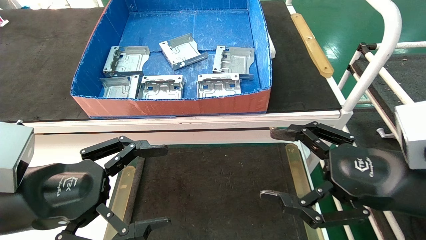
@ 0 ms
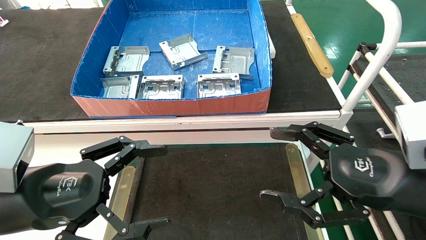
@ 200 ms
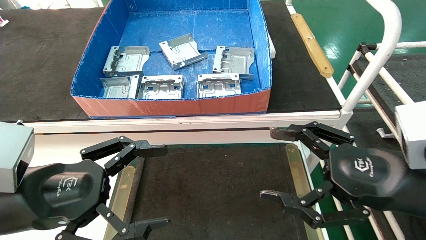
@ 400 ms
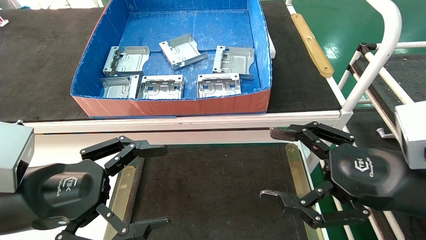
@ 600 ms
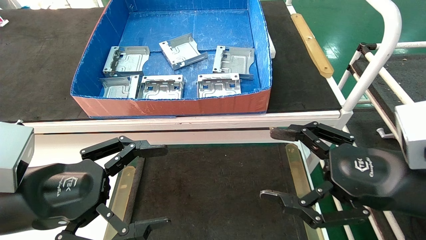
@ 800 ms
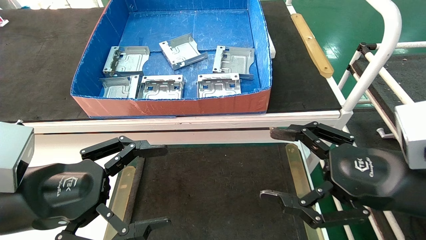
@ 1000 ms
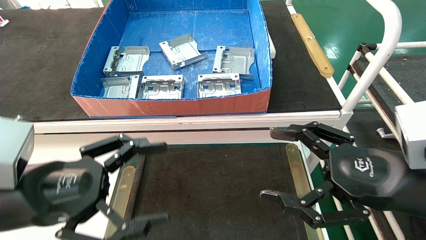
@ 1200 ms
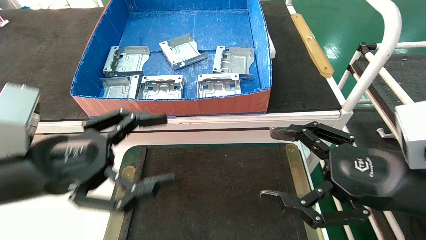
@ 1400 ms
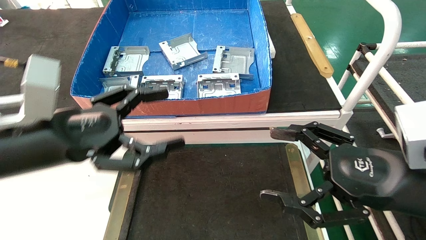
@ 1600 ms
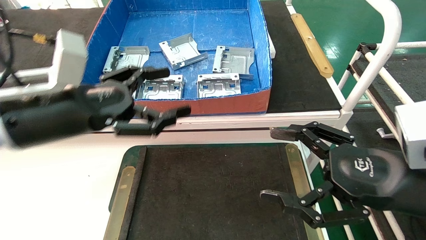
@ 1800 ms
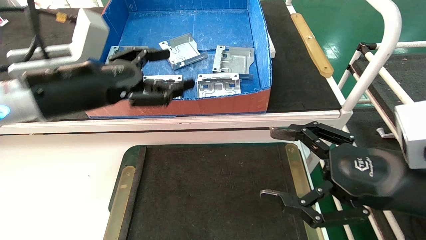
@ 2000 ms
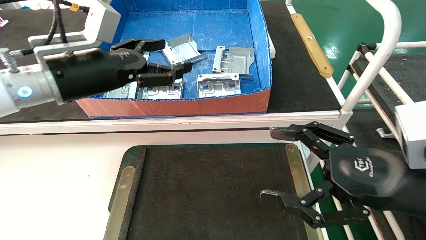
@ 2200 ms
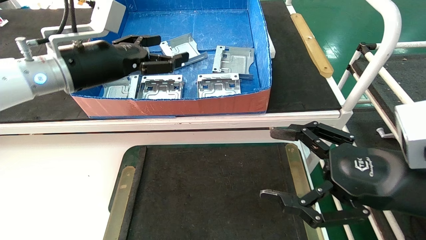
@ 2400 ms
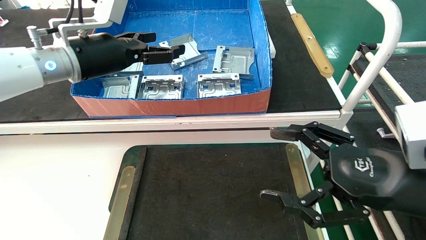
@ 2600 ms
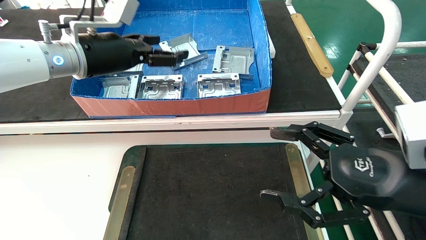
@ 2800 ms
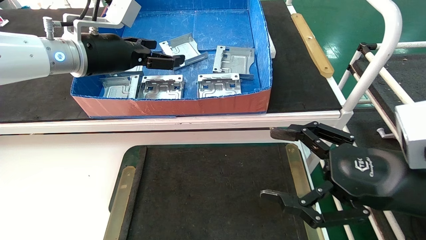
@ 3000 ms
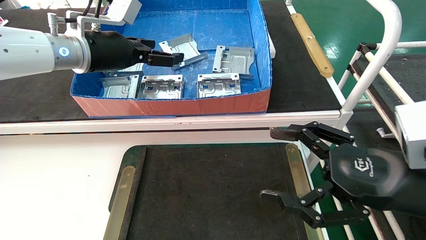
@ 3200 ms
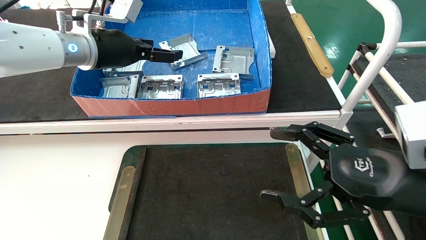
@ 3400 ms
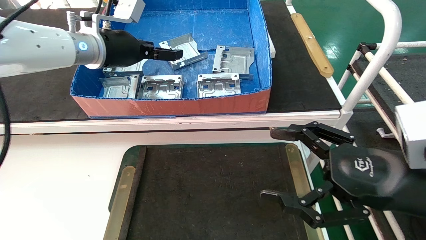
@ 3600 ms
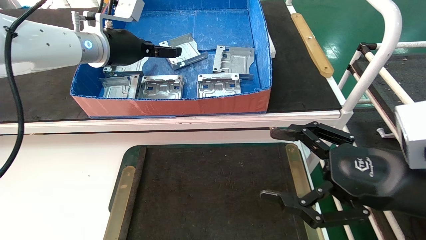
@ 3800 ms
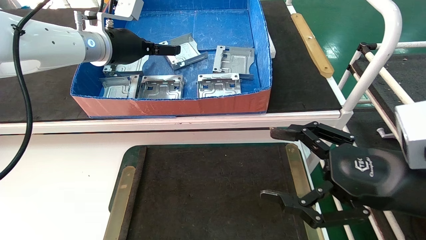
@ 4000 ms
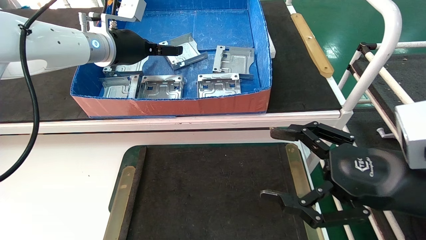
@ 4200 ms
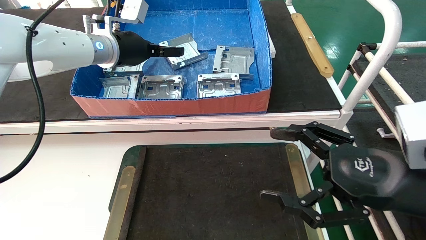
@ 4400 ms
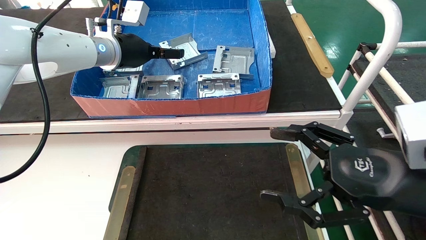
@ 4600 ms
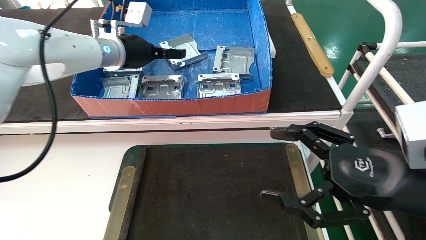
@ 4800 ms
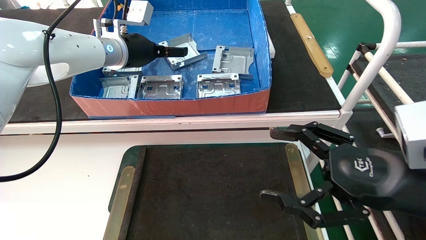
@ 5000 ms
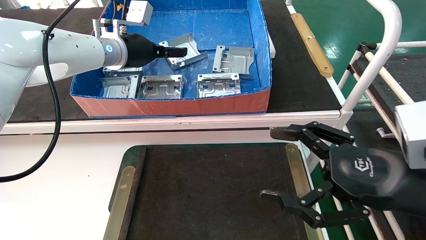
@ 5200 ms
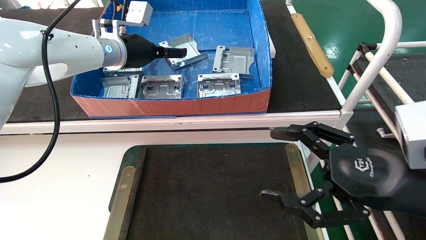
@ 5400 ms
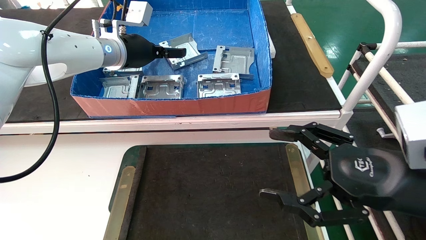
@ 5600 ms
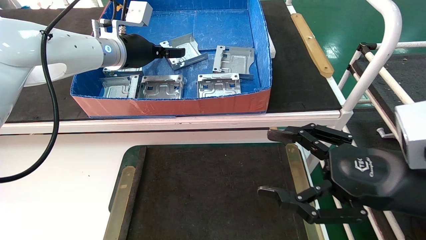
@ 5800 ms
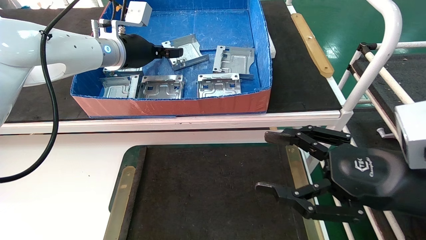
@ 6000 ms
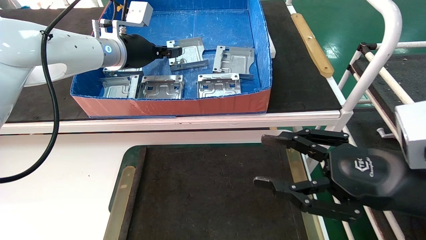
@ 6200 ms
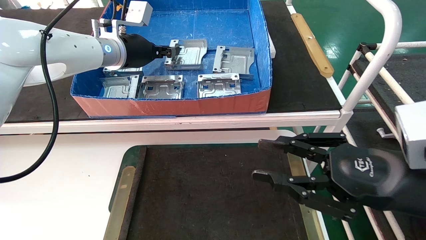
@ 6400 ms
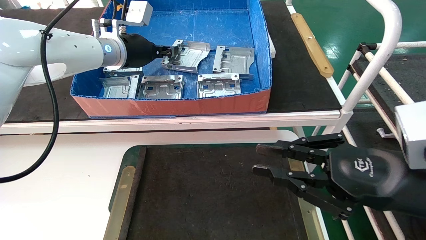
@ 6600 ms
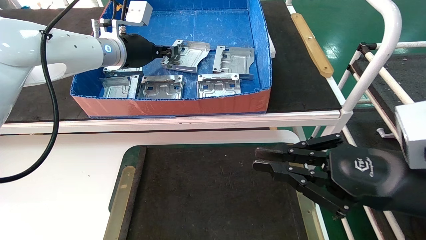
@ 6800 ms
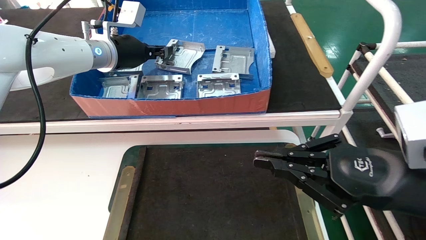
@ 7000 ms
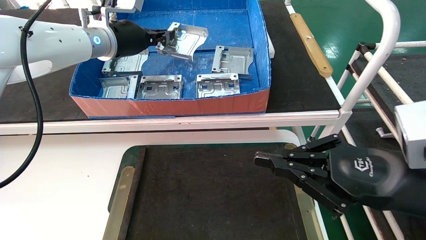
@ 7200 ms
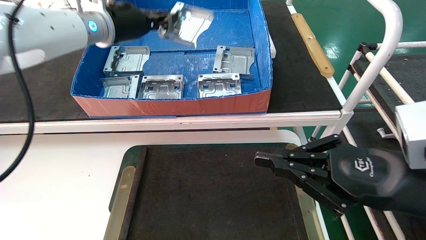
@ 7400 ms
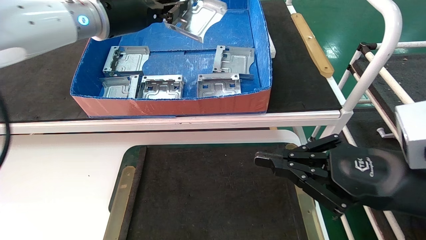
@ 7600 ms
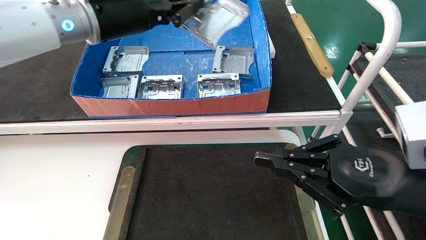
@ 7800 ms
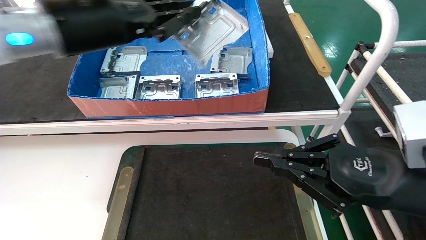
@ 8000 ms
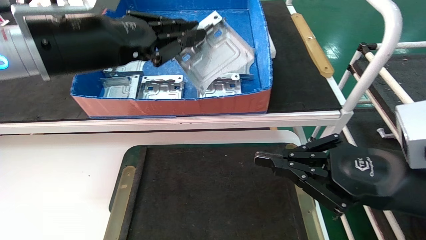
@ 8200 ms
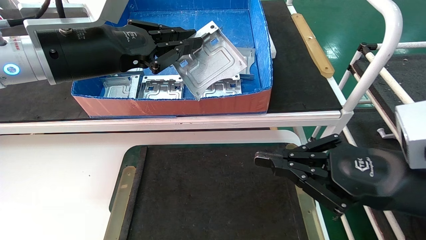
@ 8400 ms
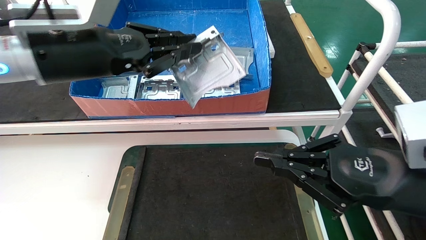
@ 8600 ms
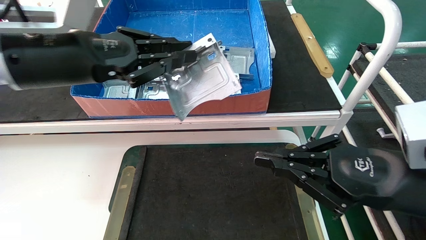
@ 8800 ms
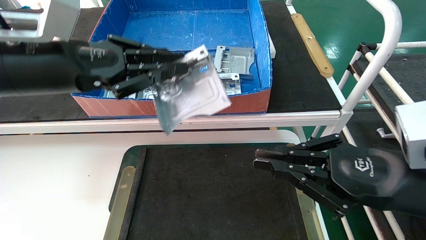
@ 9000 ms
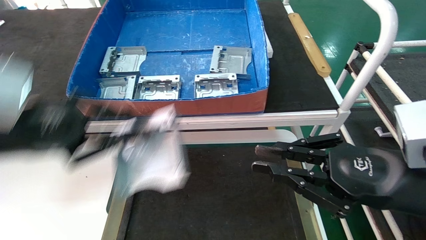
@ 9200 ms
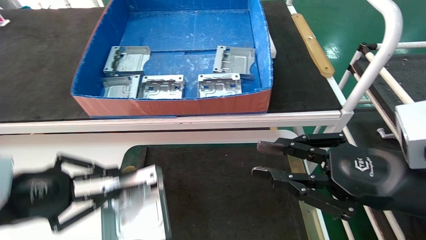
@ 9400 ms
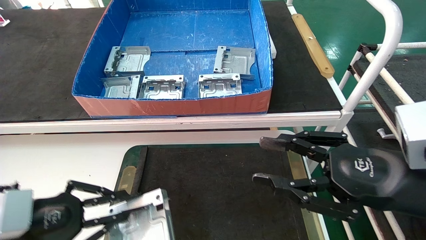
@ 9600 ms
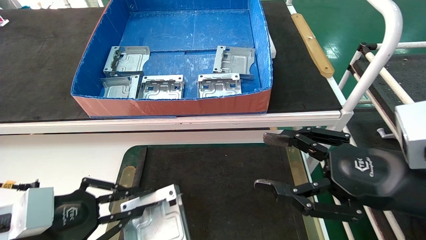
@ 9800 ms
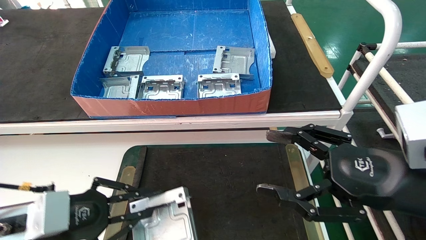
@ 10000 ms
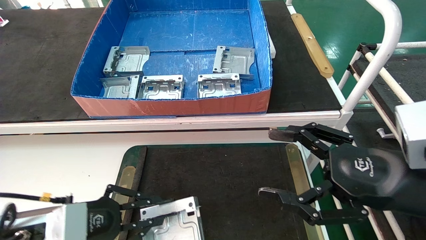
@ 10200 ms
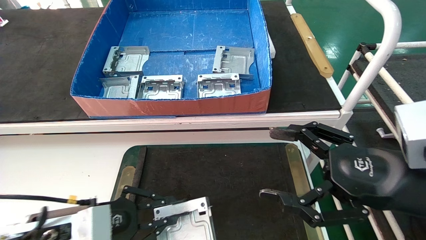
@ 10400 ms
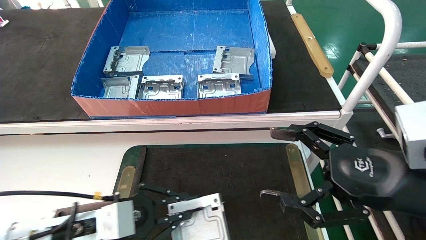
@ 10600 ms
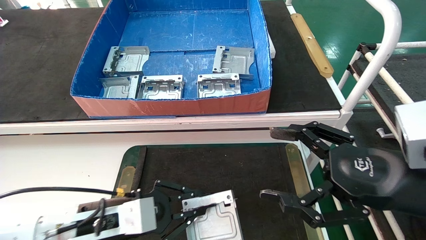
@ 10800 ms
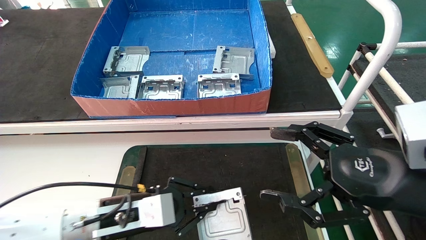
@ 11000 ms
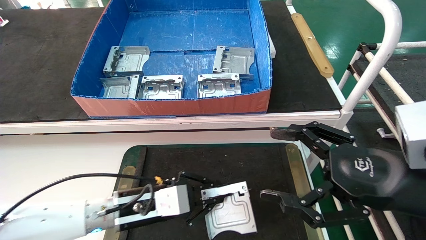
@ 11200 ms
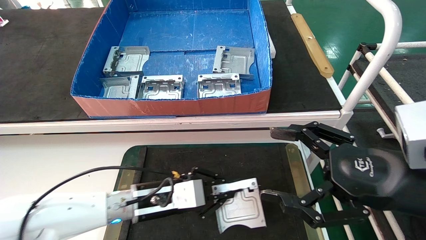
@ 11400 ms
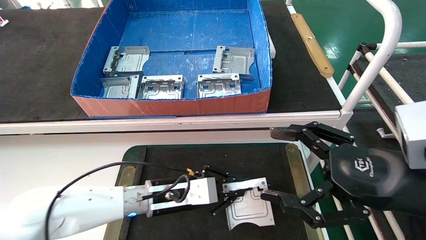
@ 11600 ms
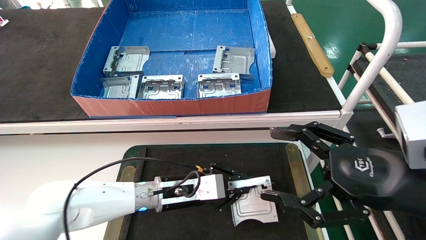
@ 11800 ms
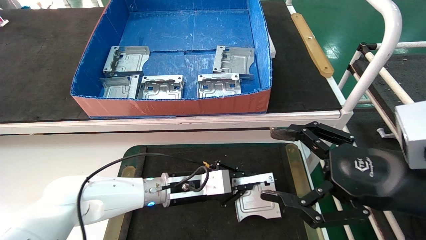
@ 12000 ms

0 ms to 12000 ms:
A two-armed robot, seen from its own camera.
Task of the whole recording: take the accessories out of the box and place them on the table.
Step, 1400 ms to 6800 ms: Pick up the hard drive bracket from the feeding area.
0 ms to 1600 ms: The left gripper moves upward, approximately 5 cm.
1600 ms to 3000 ms: The left gripper moves forward and upward, approximately 20 cm.
3000 ms to 4400 ms: The left gripper goes roughly 5 cm forward.
4400 ms to 6000 ms: The left gripper closes up.
6000 ms to 7600 ms: The left gripper shifts about 10 cm backward and upward, and closes up; the right gripper closes.
7600 ms to 9000 ms: The left gripper is displaced backward, downward and to the left by about 25 cm.
9000 ms to 10400 ms: The right gripper opens its fingers; the left gripper shifts roughly 20 cm downward.
10400 ms to 12000 ms: The left gripper moves forward and to the right, roughly 25 cm.

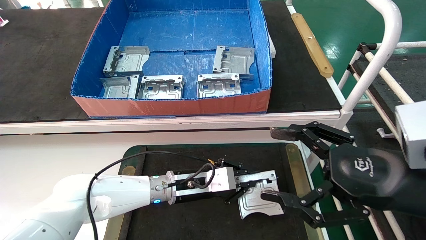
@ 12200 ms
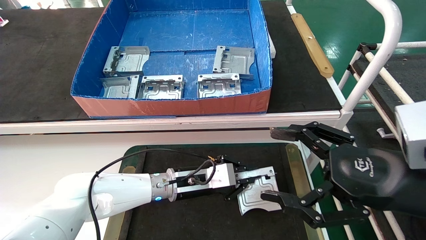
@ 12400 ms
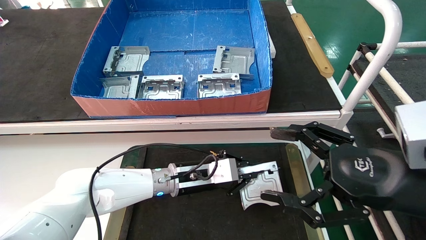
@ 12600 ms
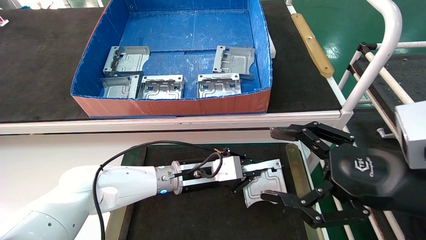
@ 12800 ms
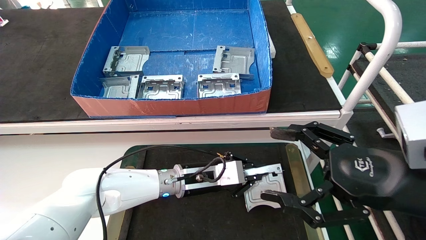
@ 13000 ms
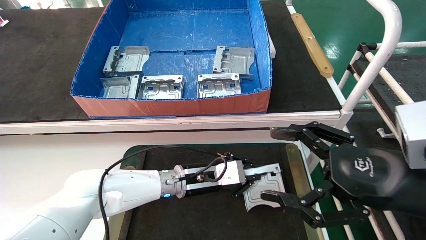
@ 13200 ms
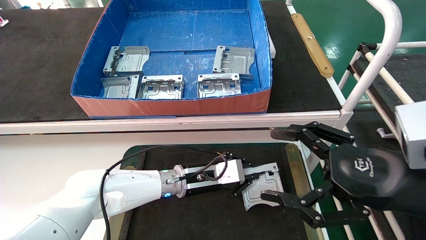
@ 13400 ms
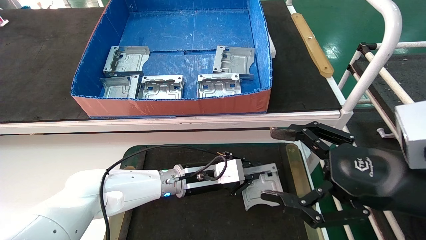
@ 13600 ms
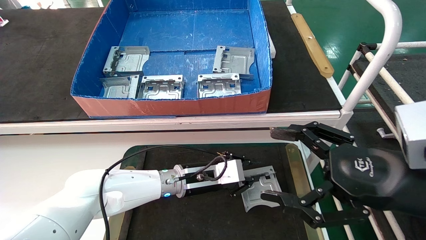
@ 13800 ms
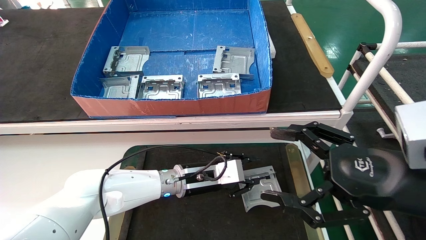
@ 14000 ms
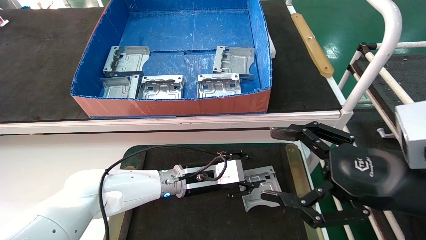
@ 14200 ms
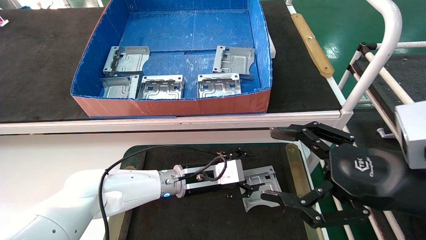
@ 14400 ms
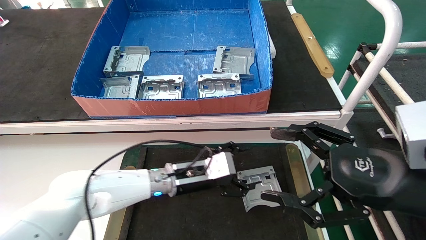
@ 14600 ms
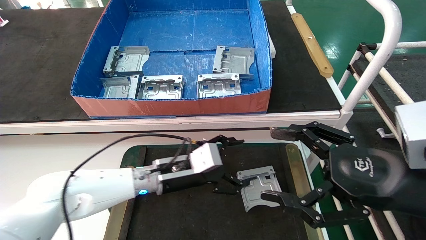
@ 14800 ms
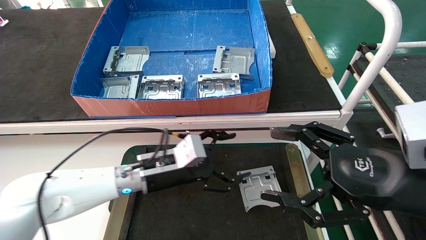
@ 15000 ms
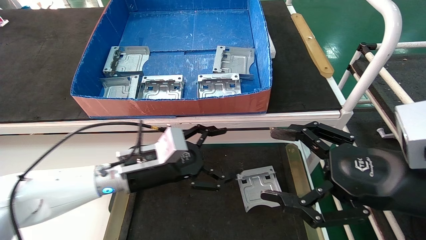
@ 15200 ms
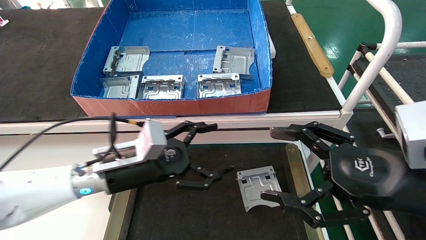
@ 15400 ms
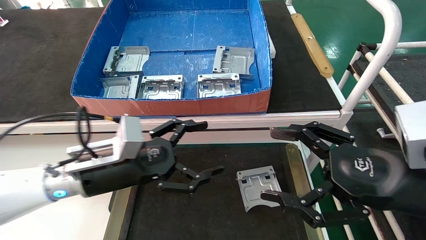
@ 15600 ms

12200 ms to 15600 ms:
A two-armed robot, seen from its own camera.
Task of the whole recording: take the accessories out of the box and place them on the table.
12200 ms to 13800 ms: The grippers move only a little.
13800 ms to 15600 ms: The left gripper moves to the left, backward and upward, about 20 cm, and opens.
